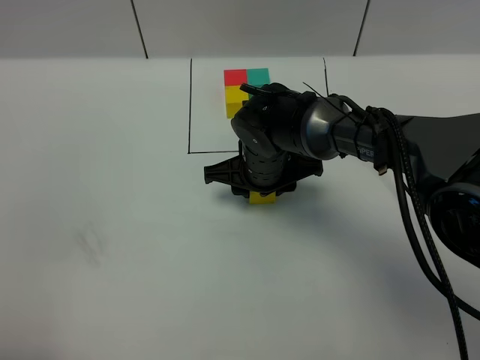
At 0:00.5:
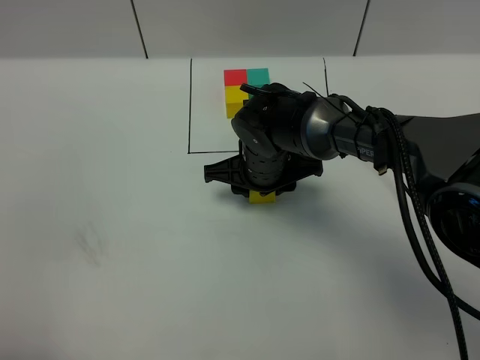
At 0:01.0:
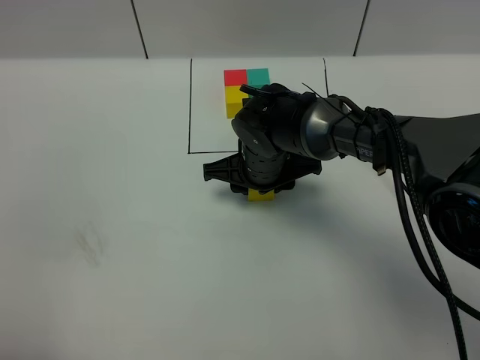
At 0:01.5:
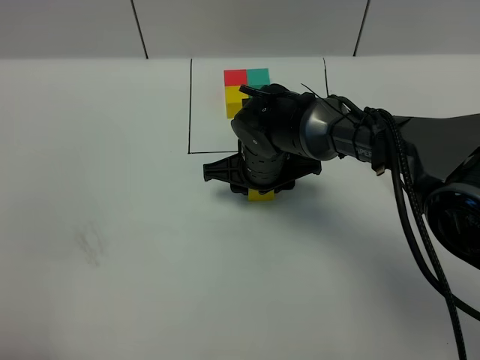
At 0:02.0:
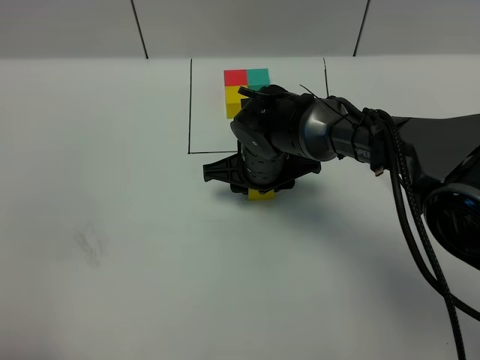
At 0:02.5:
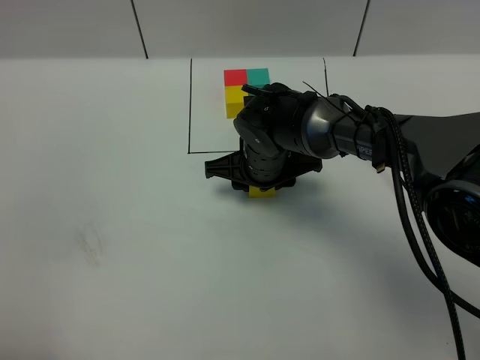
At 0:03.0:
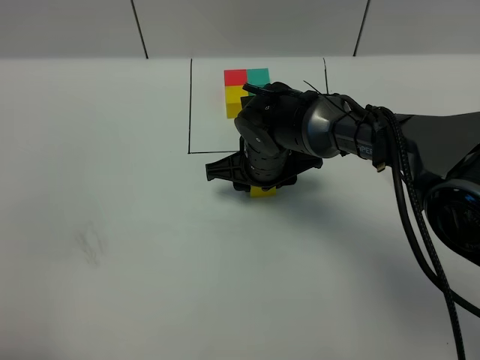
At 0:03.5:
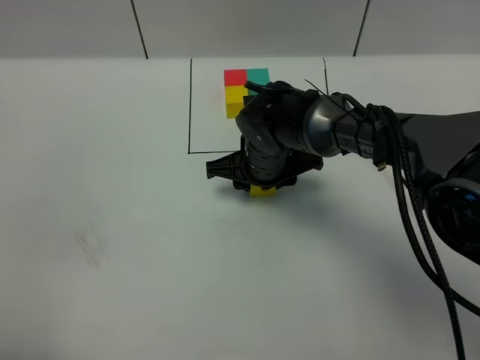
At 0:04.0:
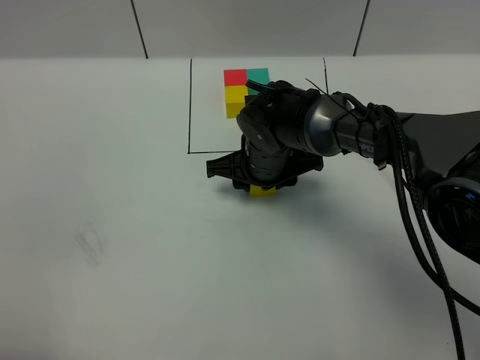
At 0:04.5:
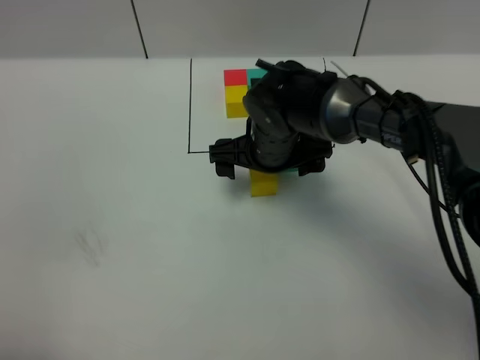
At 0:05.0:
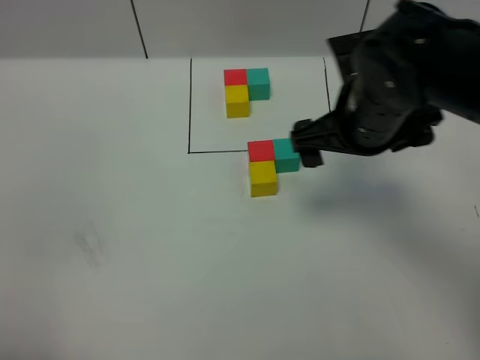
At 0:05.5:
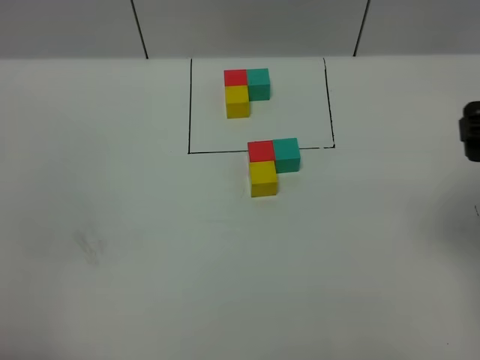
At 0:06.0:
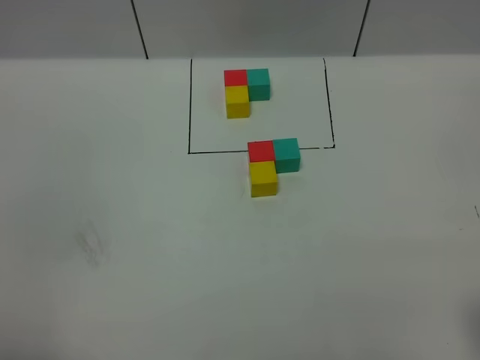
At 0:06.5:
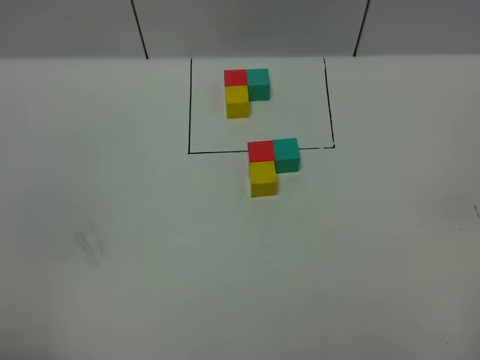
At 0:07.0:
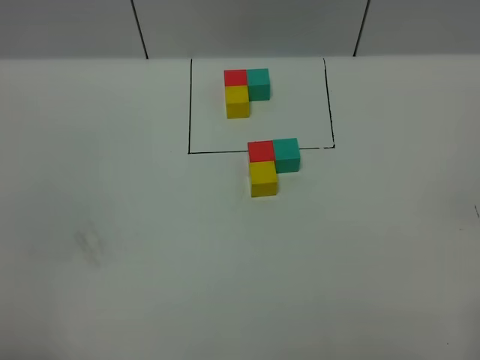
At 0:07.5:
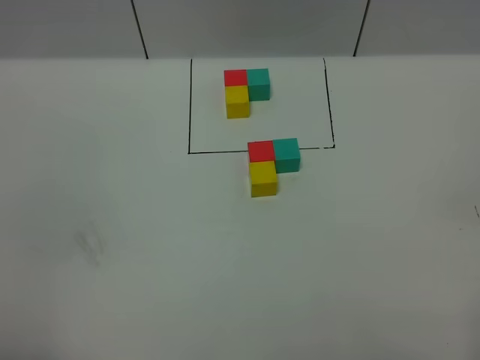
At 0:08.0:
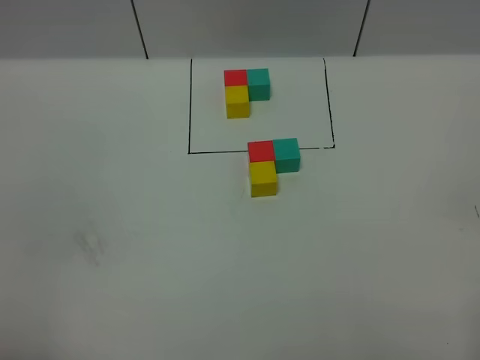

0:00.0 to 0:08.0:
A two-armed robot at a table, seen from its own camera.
Task of the whole recording: According to the building block template in front, assemble the scattered blocks together.
Step, 0:00.0 to 0:04.0: Put the yellow build block on the behind of the red build block.
0:00.0 to 0:04.0: Neither gripper changes place.
0:04.0 to 0:06.0: The right gripper travels backward, to the right and upward by roughly 40 cm, and opens.

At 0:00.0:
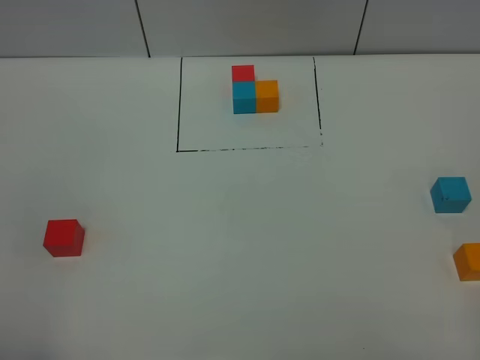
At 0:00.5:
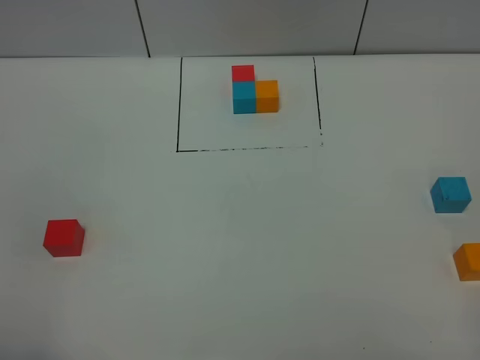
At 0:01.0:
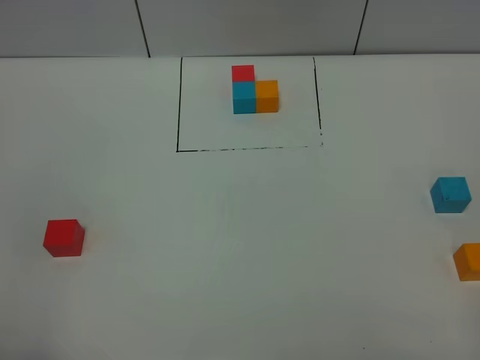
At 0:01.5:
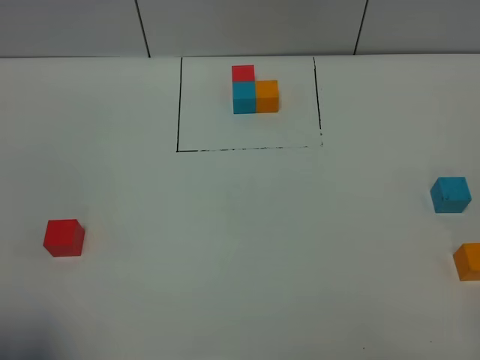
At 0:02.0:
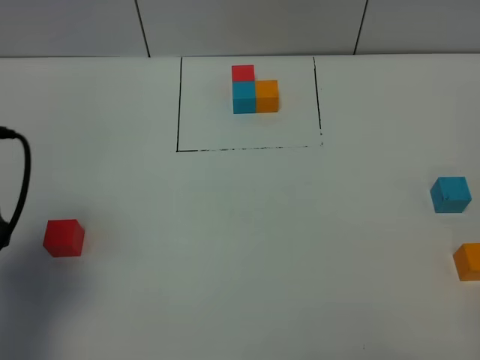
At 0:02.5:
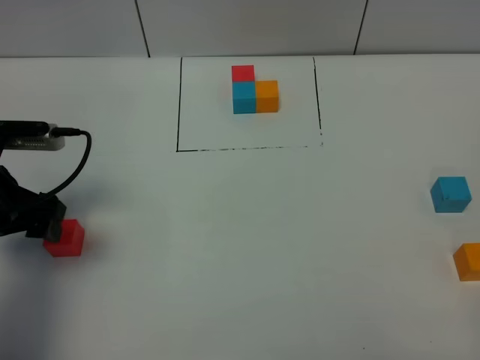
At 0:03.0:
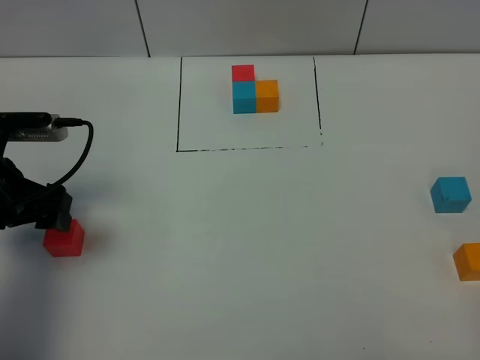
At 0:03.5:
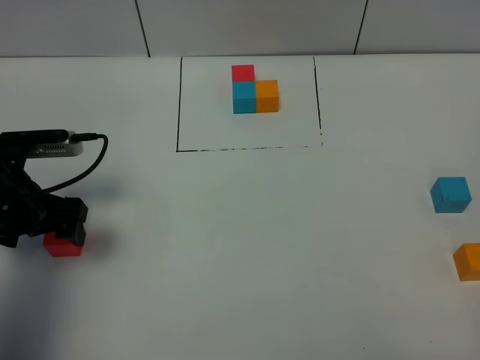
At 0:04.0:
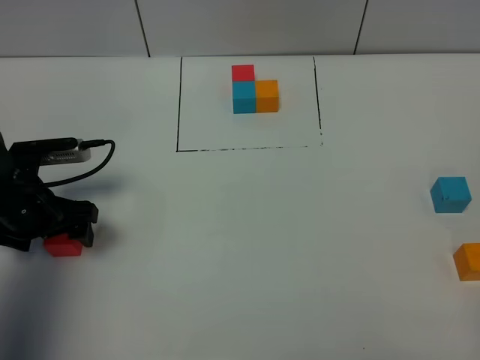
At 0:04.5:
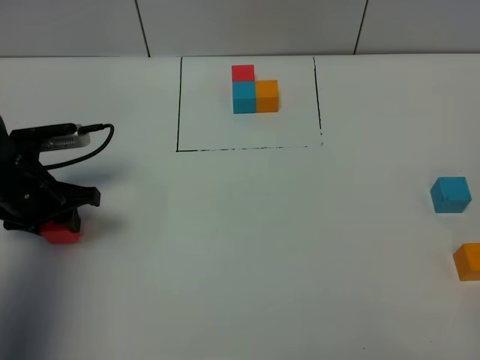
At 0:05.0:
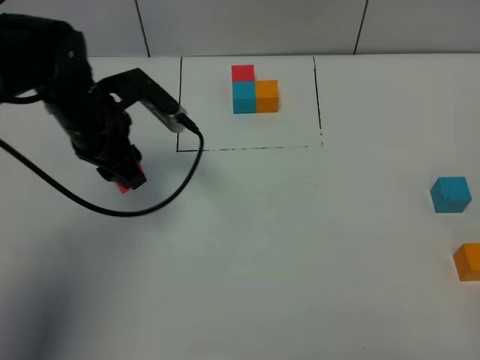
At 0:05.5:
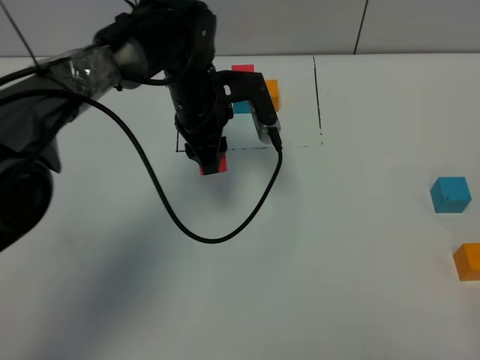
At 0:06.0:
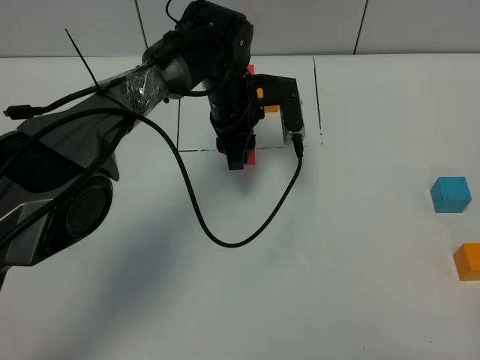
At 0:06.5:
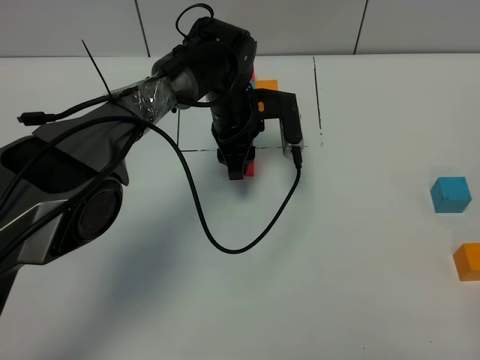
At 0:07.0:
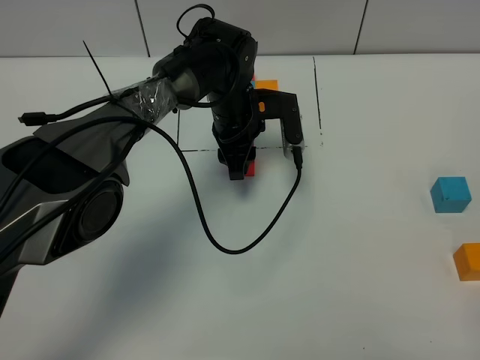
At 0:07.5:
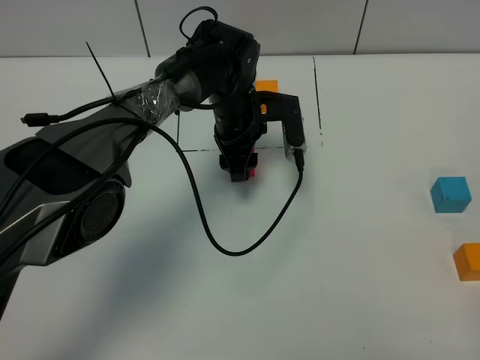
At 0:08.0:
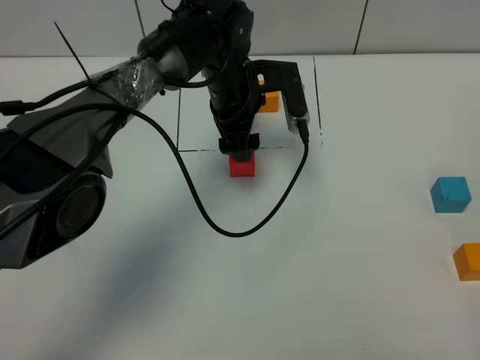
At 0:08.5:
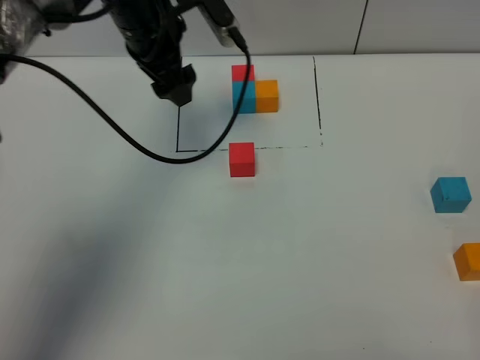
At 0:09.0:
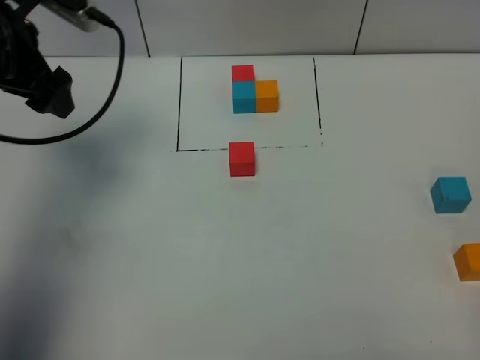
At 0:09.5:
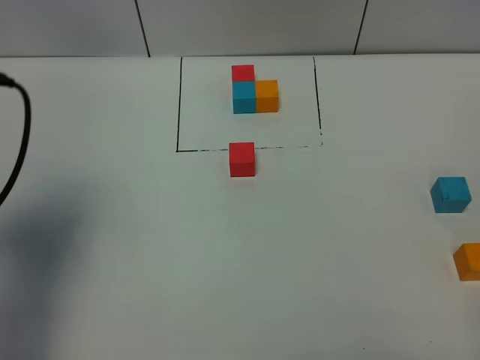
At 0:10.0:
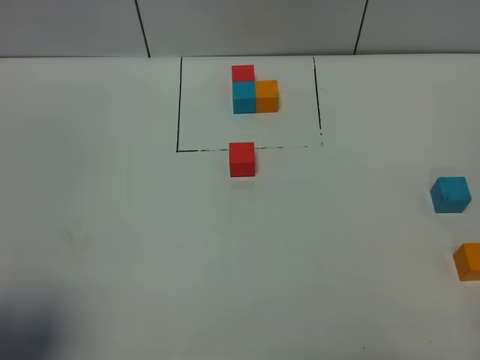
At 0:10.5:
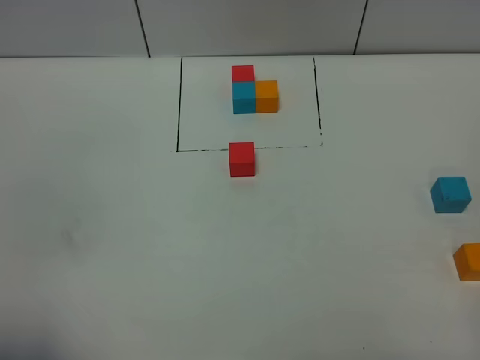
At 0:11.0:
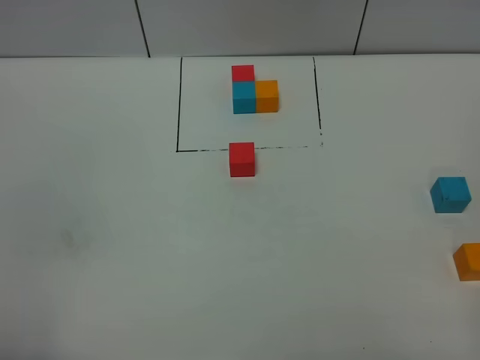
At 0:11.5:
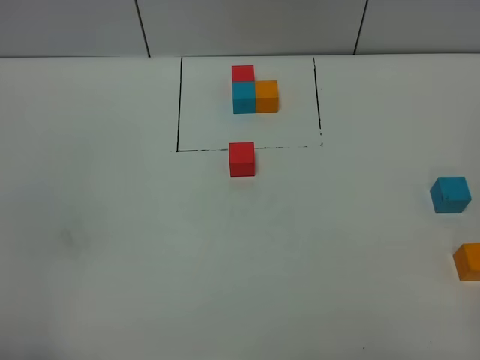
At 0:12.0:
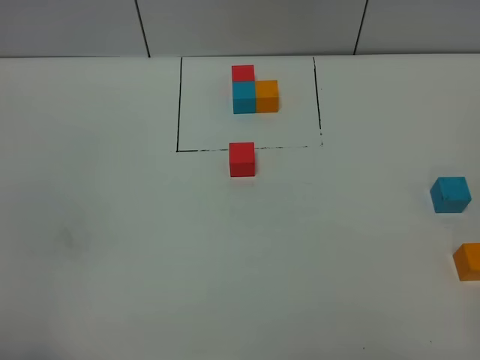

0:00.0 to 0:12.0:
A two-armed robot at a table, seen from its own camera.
Task of the whole recording: According to the building block template in front, assemble the scattered blocks together.
Step, 0:00.0 to 0:07.0: Put the red build block in the center of the table.
0:00.0 to 0:02.0: The left gripper heads forward, covering roughly 20 cm.
0:02.0 to 0:04.0: The left gripper is displaced downward and forward by approximately 20 cm.
0:04.0 to 0:06.0: The left gripper heads to the right and forward, covering roughly 30 cm, and closes its fingers.
0:06.0 to 0:08.0: The left gripper opens.
0:08.0 to 0:10.0: The left gripper heads backward and to the left, covering some 50 cm.
0:10.0 to 0:12.0: The left gripper heads backward, covering some 10 cm.

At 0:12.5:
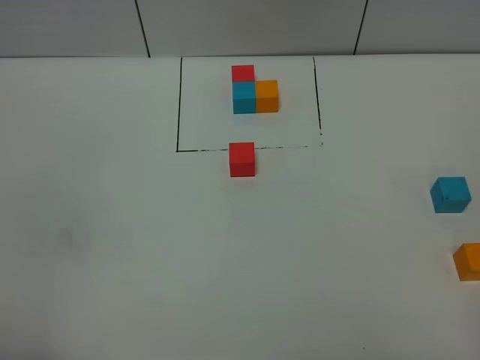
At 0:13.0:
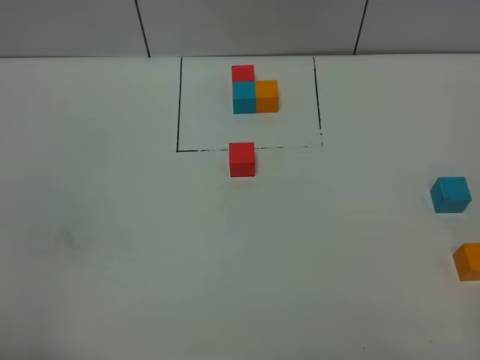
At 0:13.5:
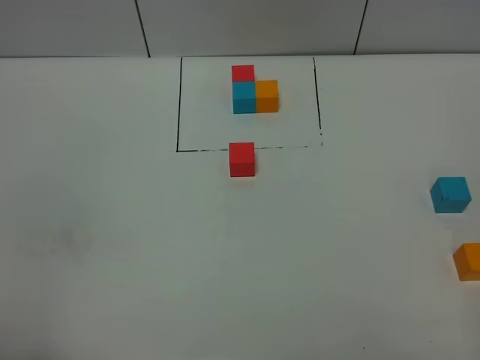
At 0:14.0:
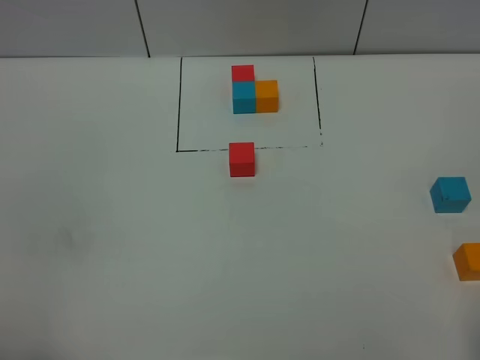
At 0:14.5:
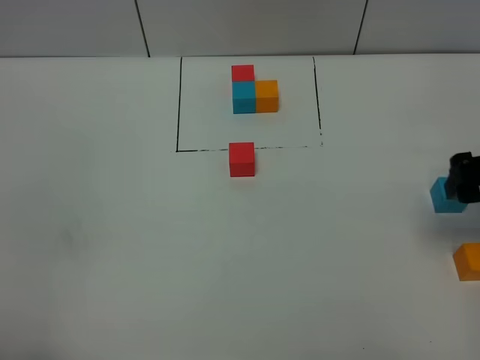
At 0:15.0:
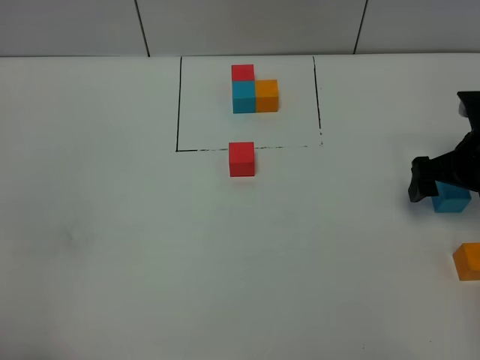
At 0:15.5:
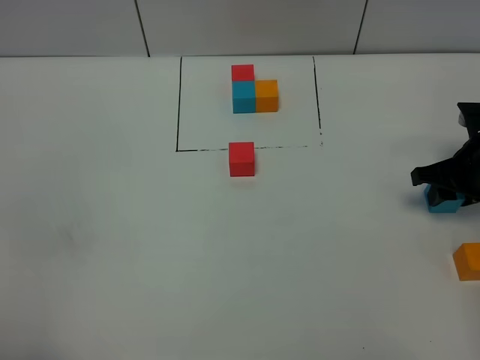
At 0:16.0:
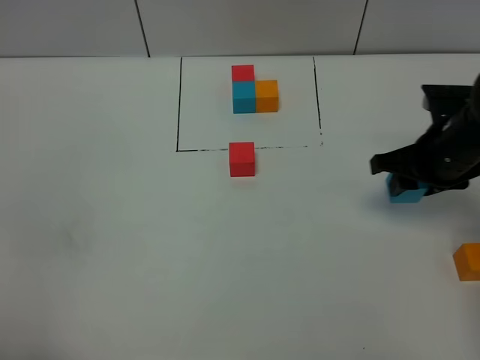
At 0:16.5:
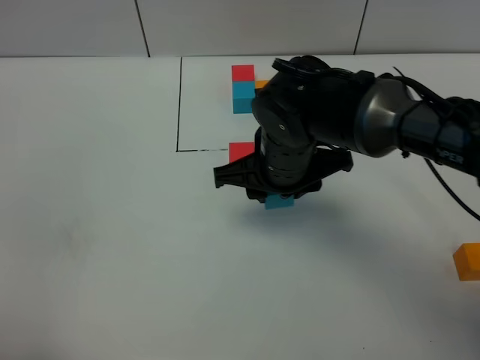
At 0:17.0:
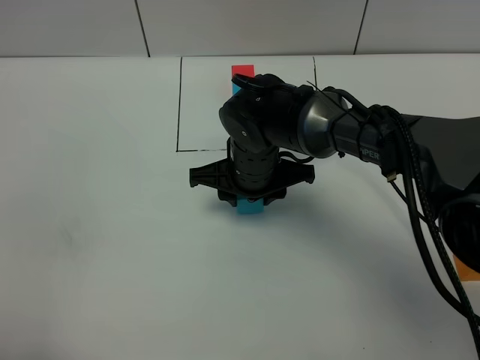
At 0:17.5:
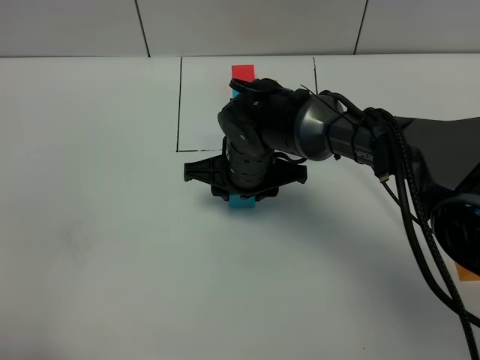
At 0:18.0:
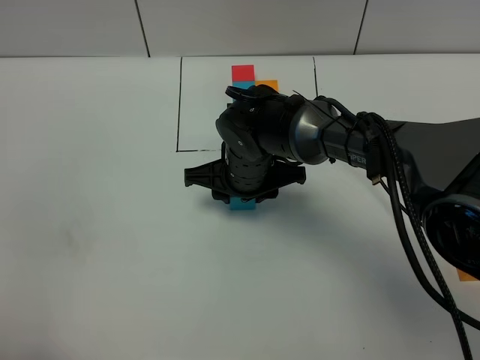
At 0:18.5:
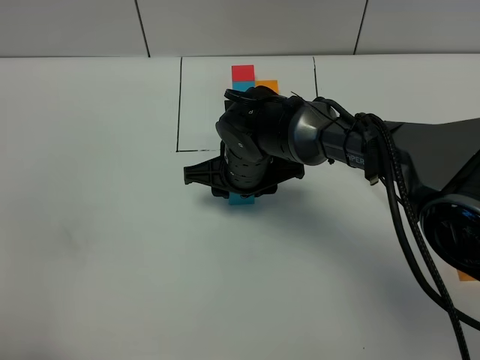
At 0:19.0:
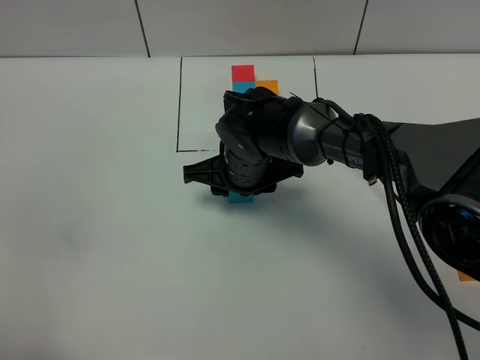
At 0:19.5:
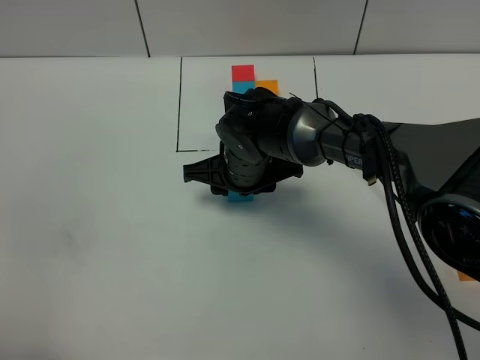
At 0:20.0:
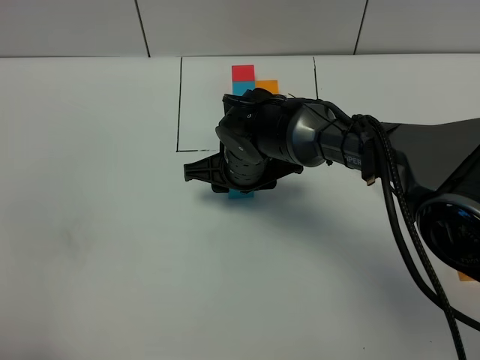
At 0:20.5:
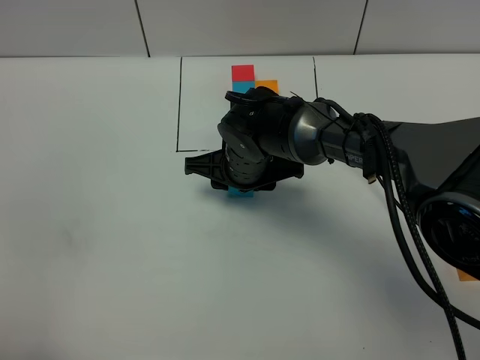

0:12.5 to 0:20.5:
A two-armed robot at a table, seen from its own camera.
Task of the whole recording: According to the building block template in front, assemble the scattered blocks together.
0:12.5 to 0:14.5: The right gripper shifts approximately 25 cm forward, and opens.
0:14.5 to 0:16.5: The right gripper heads to the left, covering about 25 cm, and closes its fingers.
0:16.5 to 0:18.5: The right gripper is displaced downward by approximately 5 cm.
0:18.5 to 0:20.5: The grippers move only a little.
